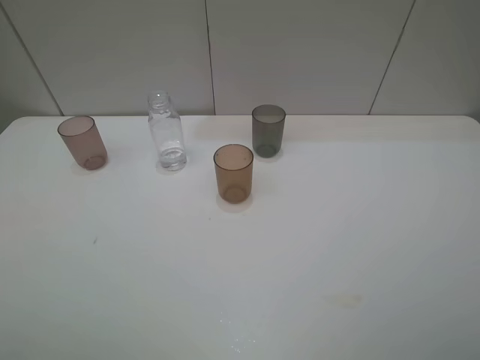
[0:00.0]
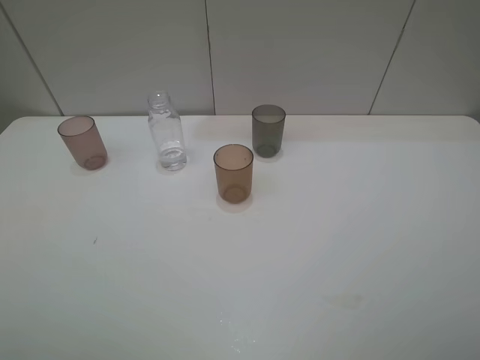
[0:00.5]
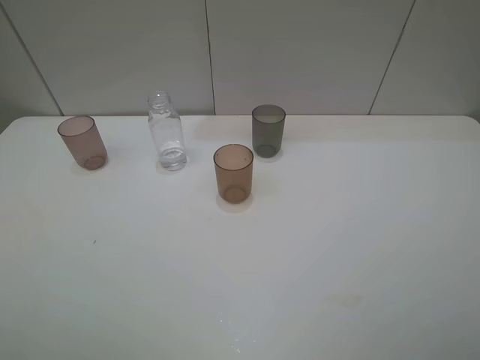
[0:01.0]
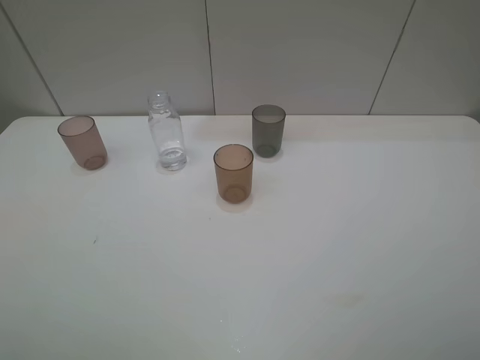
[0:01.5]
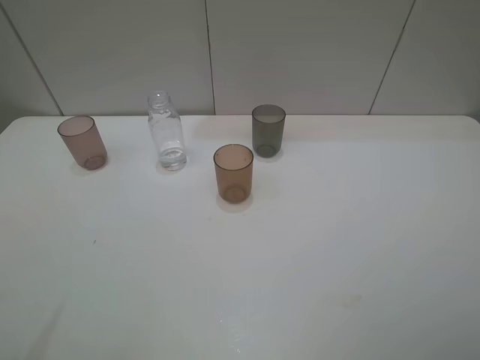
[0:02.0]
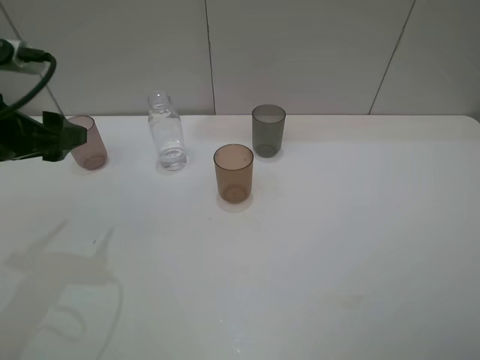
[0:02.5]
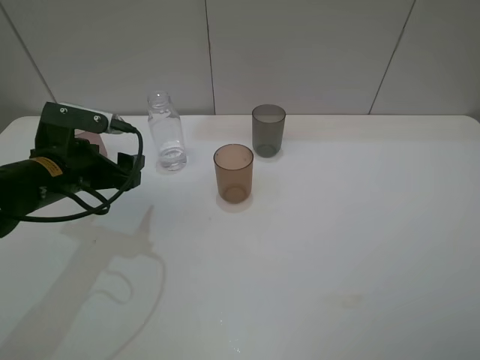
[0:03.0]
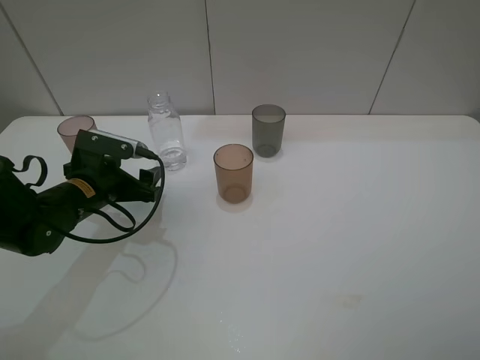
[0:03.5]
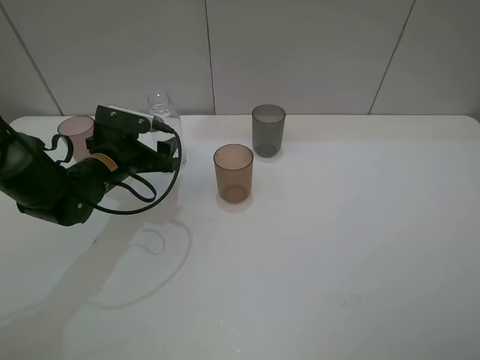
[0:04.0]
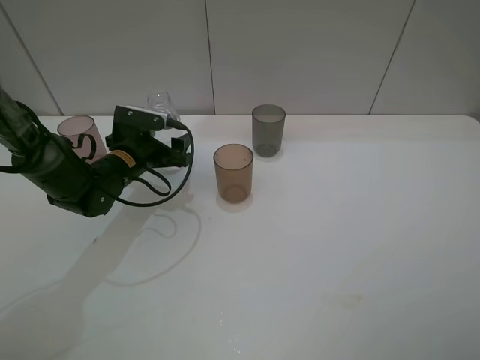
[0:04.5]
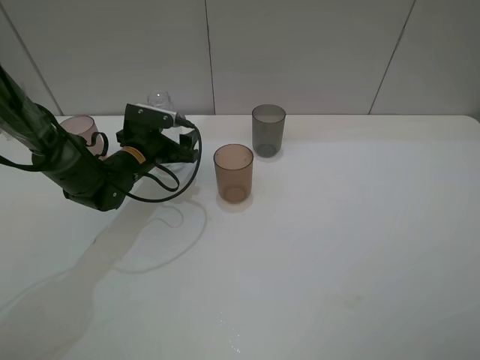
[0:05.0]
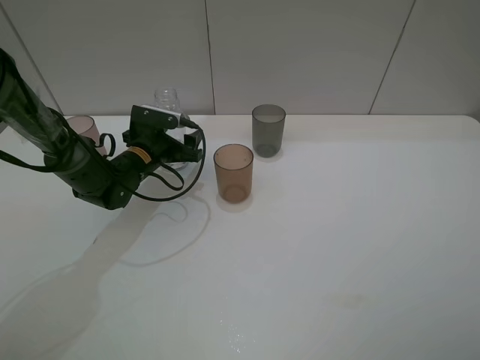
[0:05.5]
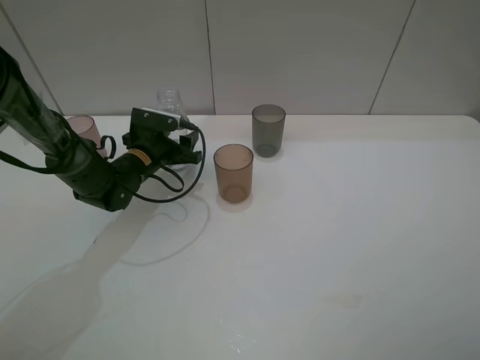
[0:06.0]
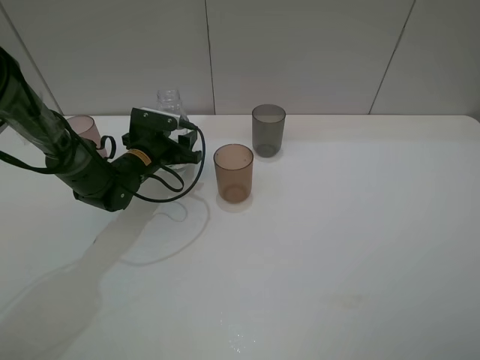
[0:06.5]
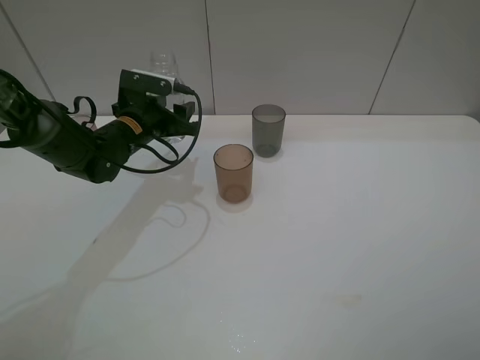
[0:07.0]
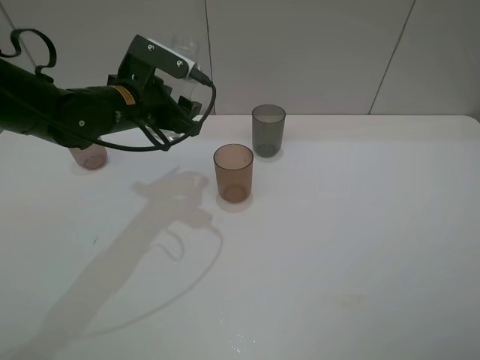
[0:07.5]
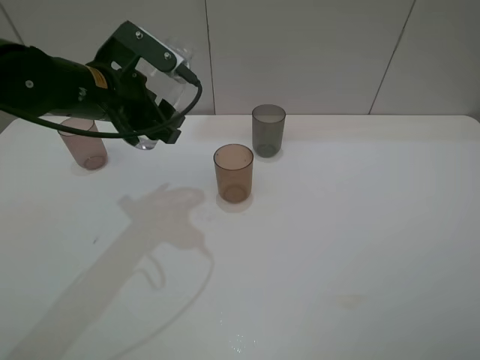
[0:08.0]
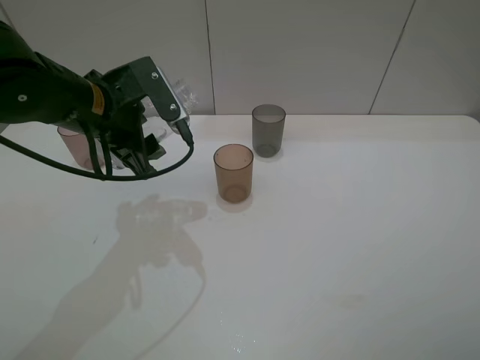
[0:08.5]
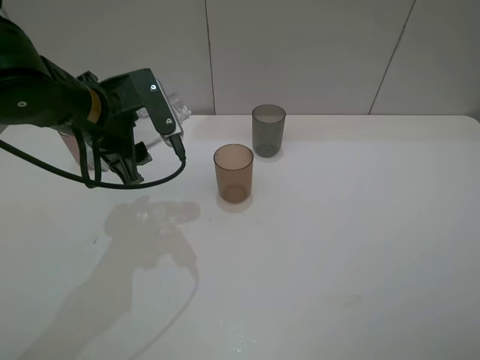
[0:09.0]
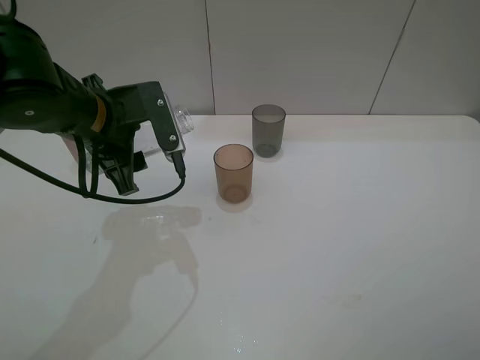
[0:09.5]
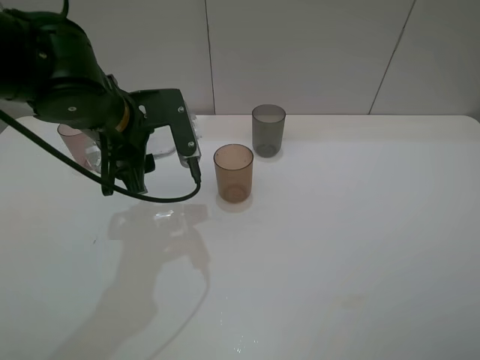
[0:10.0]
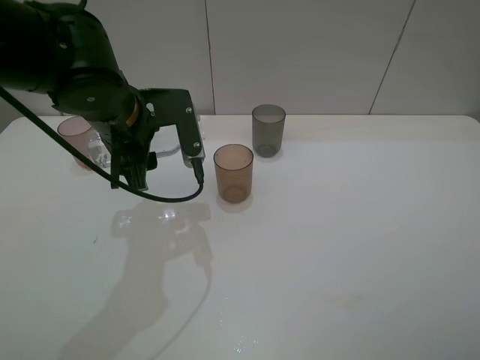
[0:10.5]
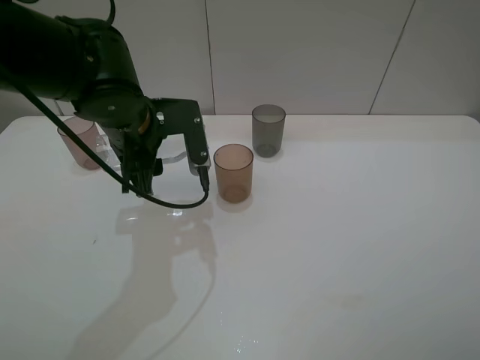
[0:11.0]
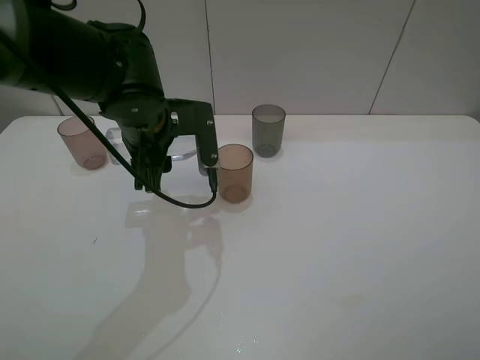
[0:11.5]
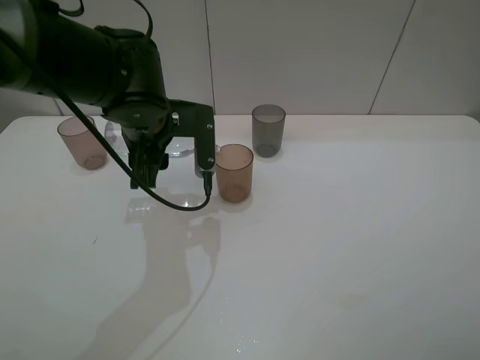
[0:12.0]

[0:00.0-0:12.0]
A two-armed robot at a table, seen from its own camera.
Task of the whole recording: pick up the bottle filled with water and pour water into the middle cup of the three cups.
Step, 0:00.0 to 0:06.0: Grasp the transparent bottle with the left gripper.
Step, 0:06.5 to 0:10.5: Pour water from transparent bottle to brown cup with the left gripper.
0:02.0 to 0:04.0: The left gripper travels downward, forward and to the right by roughly 30 cm.
0:04.0 to 0:06.0: The left gripper goes about 5 cm forward, and closes.
0:06.0 to 0:08.0: The left gripper travels upward and backward by approximately 20 cm.
0:10.0 to 0:12.0: The grippers move only a little.

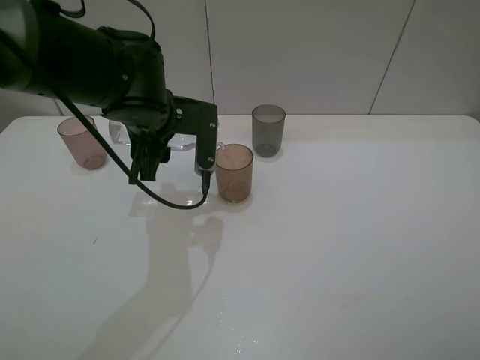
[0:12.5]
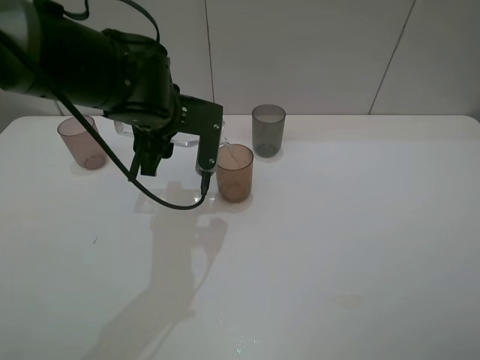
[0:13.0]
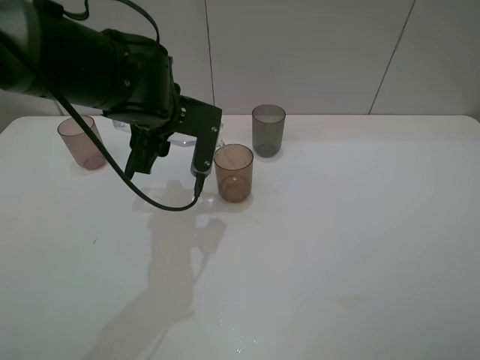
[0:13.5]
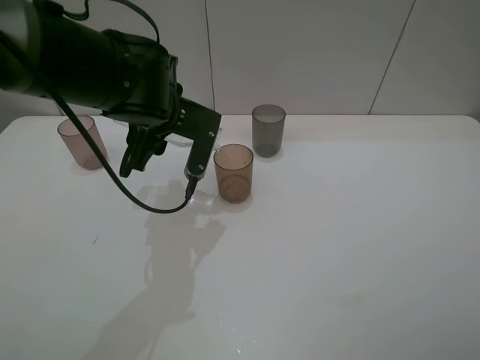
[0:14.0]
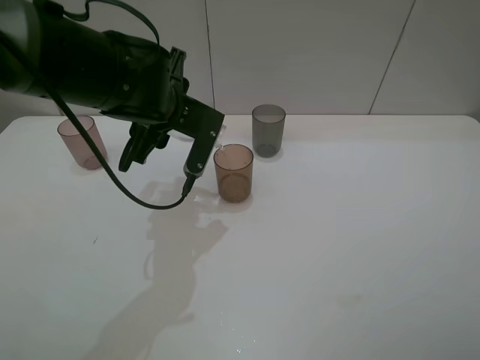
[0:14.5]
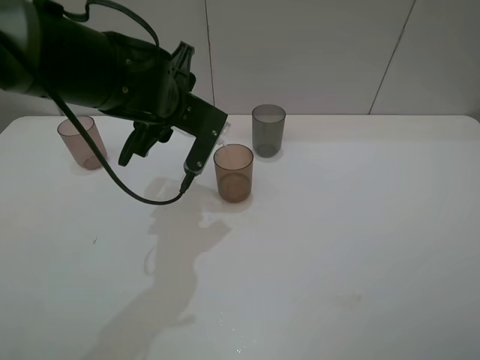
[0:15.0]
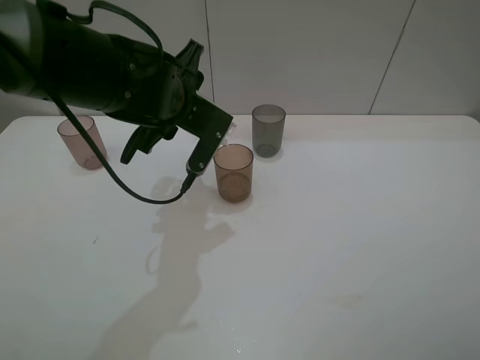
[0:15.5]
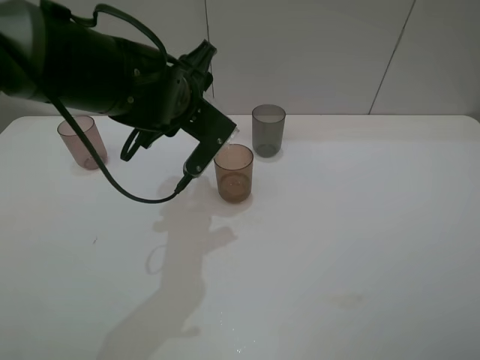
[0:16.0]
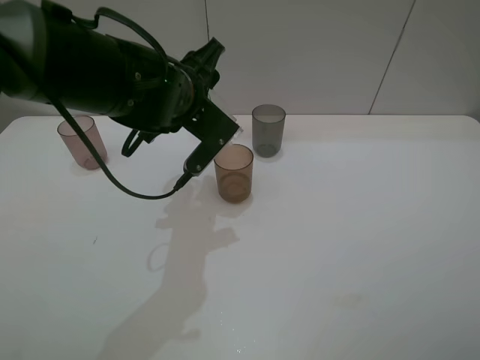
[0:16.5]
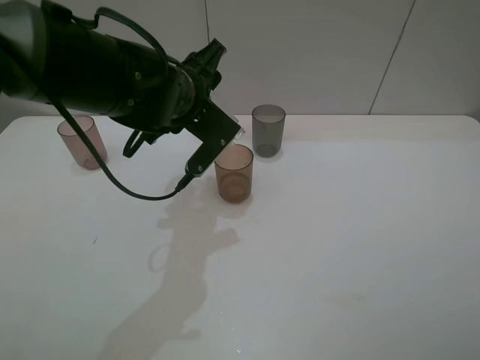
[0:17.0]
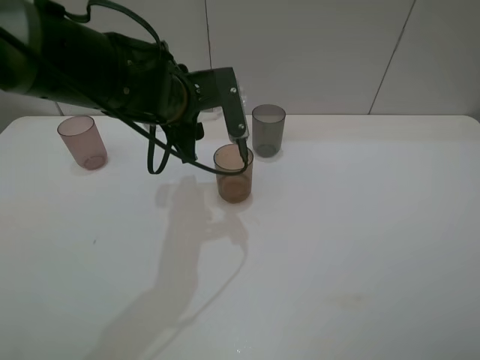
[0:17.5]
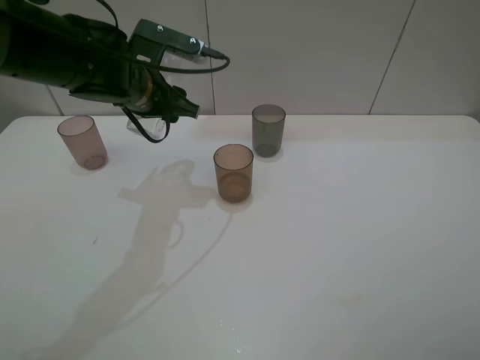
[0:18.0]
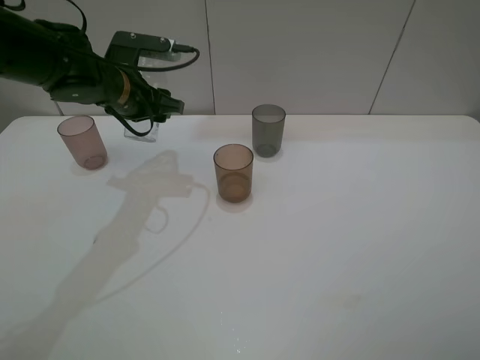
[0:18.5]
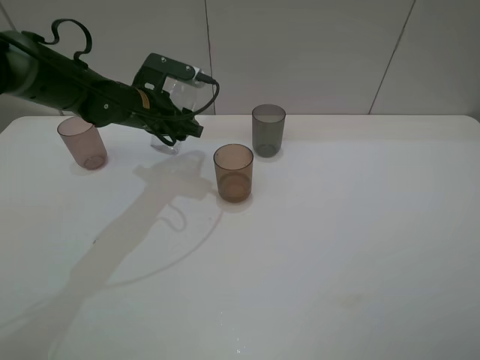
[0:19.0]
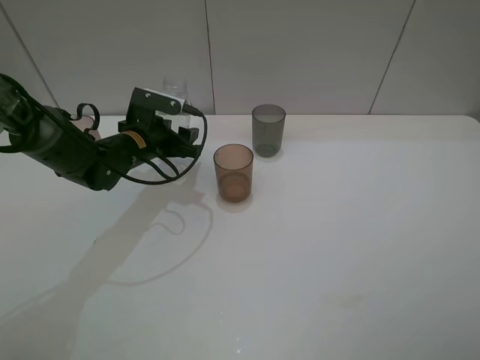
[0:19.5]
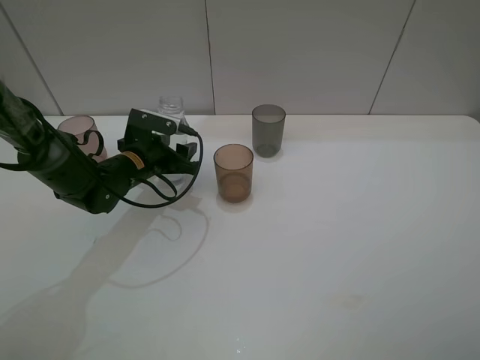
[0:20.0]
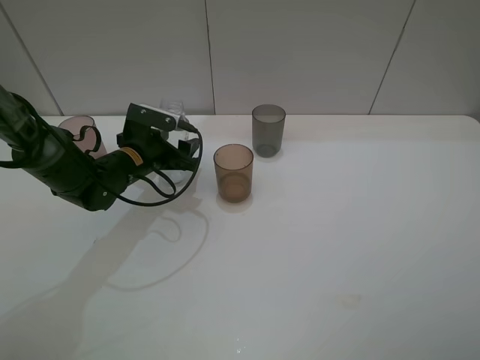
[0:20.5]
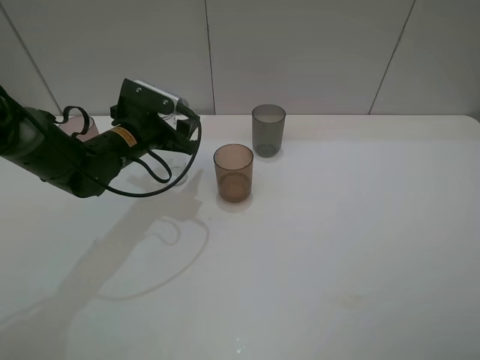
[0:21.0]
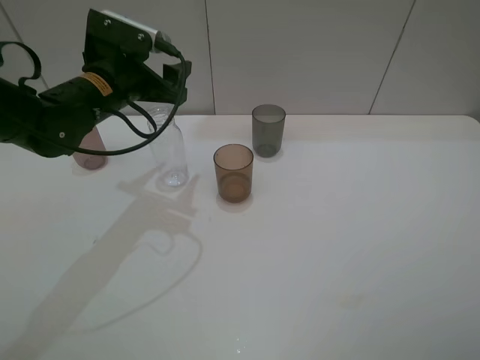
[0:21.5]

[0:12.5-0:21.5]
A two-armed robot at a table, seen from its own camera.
Task of the whole recording: pick up the bottle filled with water and pour water into the middle cup of the three cups.
0:17.0 to 0:19.5: The left gripper heads downward, to the left and forward, covering roughly 15 cm.
0:19.5 to 0:21.5: The left gripper is displaced upward by some 10 cm, and opens.

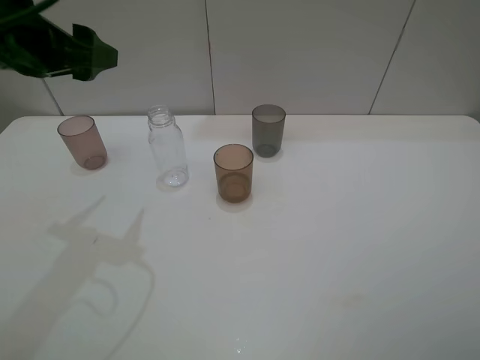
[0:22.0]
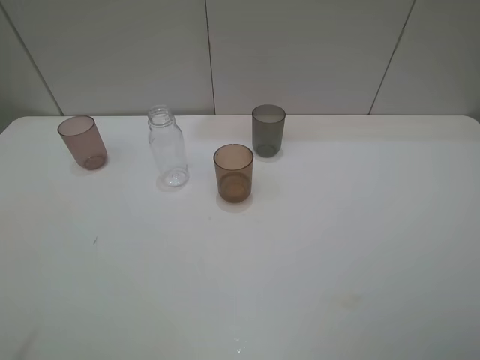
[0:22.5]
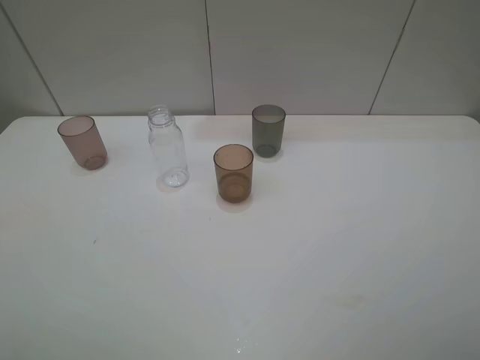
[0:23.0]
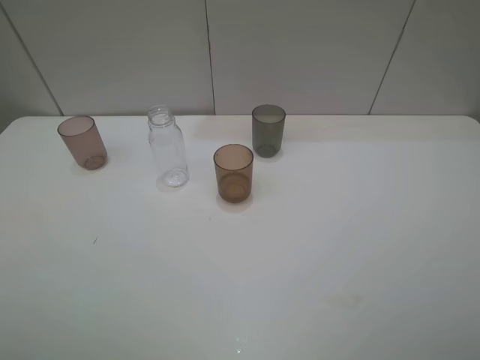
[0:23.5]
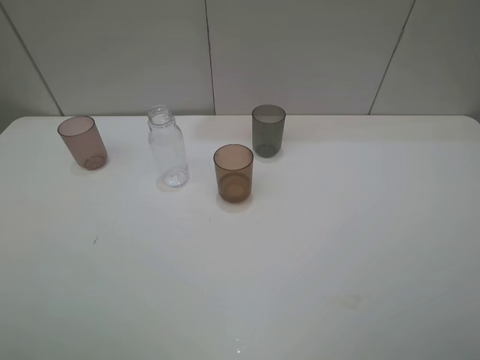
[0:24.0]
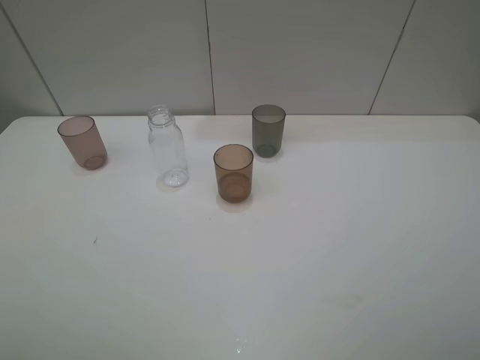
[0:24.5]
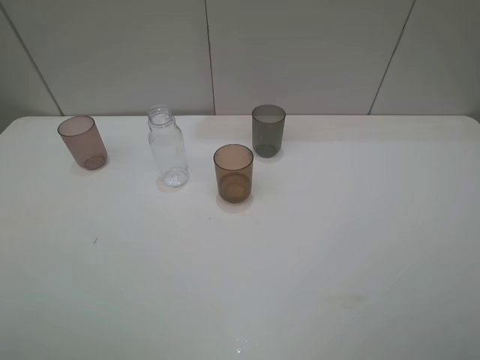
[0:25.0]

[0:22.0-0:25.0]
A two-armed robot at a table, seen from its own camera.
Task of the whole recording: pick up the bottle filled with water and pour water into the middle cup of the three cups.
0:22.0 to 0:23.5: The left gripper shifts roughly 25 cm backward.

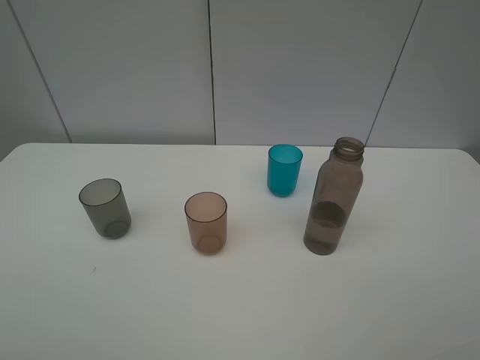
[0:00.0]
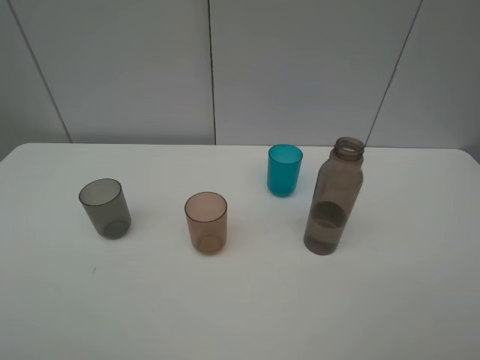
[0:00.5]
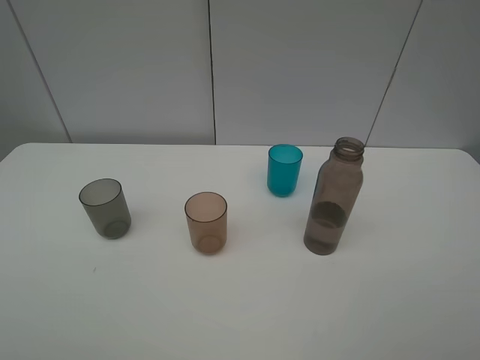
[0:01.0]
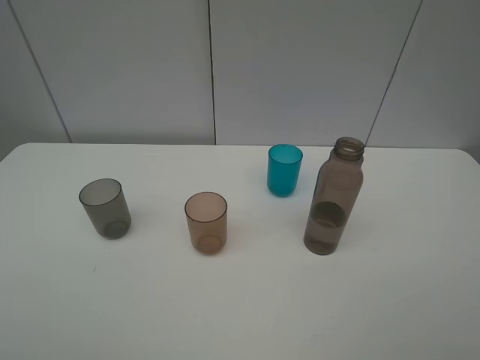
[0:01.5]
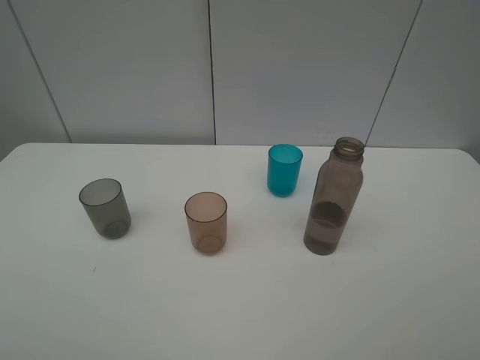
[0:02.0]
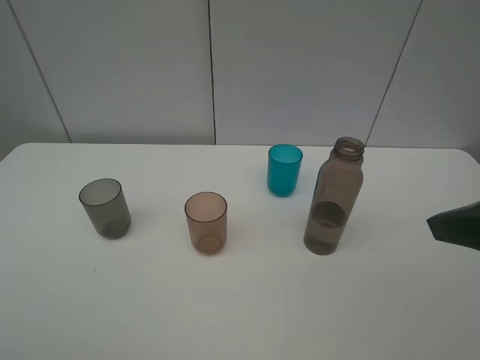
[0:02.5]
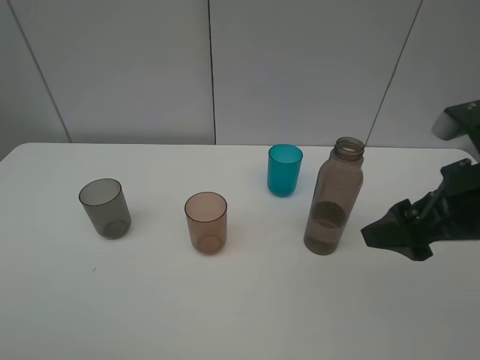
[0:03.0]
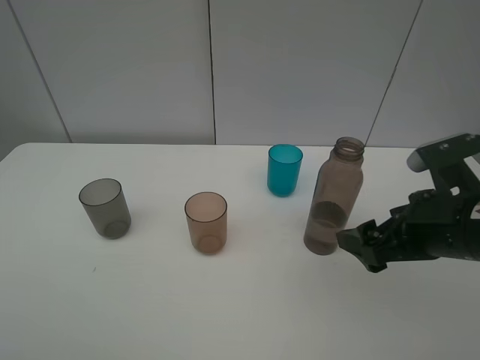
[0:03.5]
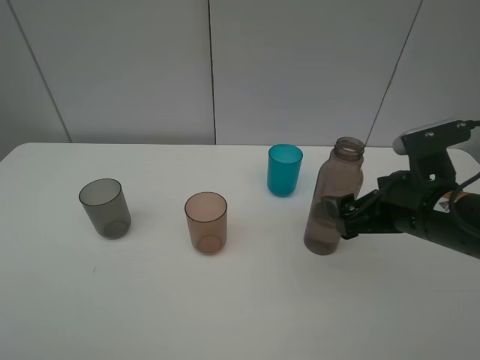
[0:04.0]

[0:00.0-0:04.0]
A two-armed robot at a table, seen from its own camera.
Task of the whole recording: pick up the bottle filled with water and pour water into the middle cup of the three cups.
0:02.0 to 0:04.0: The right gripper moves forward, downward and to the left, some 25 cm.
